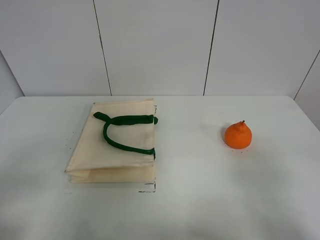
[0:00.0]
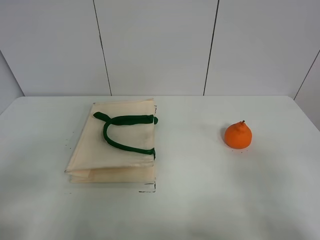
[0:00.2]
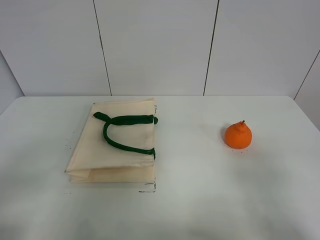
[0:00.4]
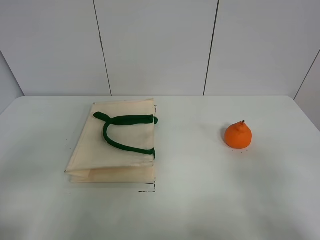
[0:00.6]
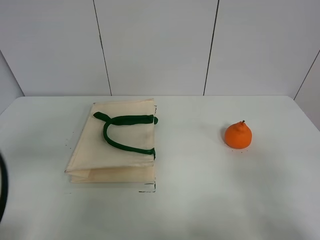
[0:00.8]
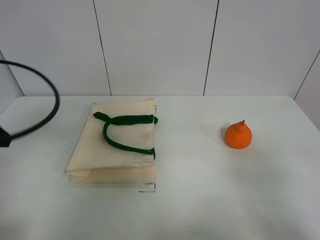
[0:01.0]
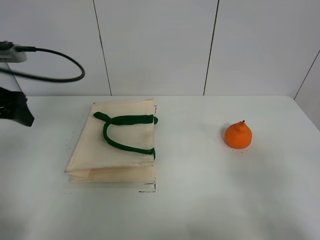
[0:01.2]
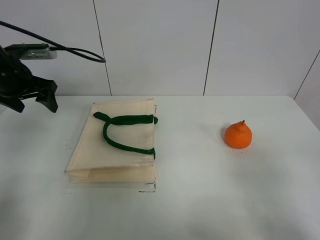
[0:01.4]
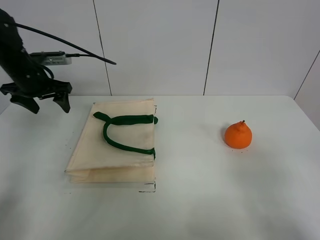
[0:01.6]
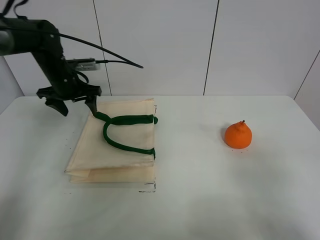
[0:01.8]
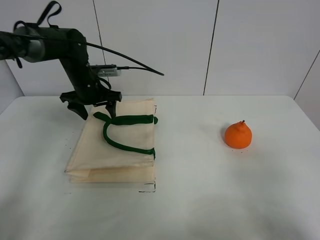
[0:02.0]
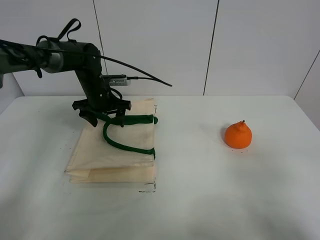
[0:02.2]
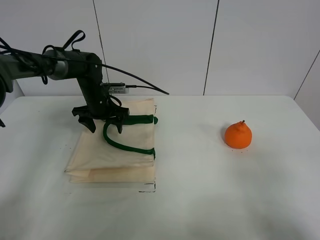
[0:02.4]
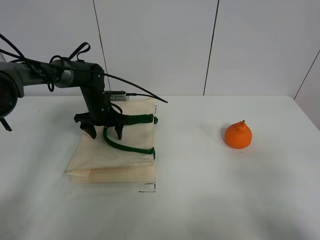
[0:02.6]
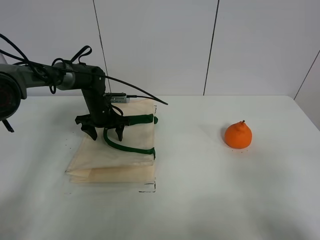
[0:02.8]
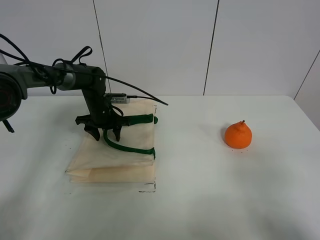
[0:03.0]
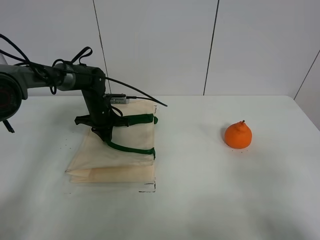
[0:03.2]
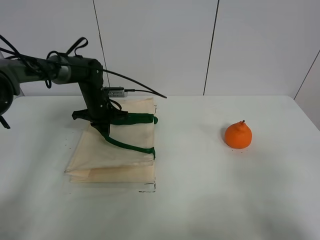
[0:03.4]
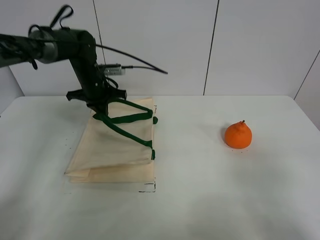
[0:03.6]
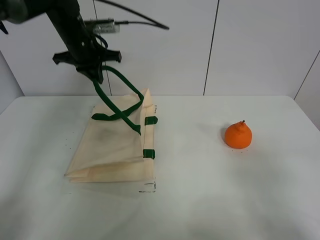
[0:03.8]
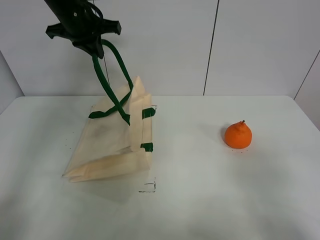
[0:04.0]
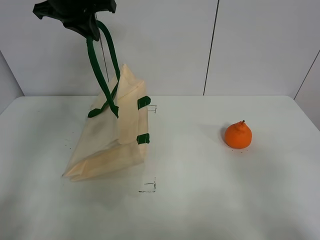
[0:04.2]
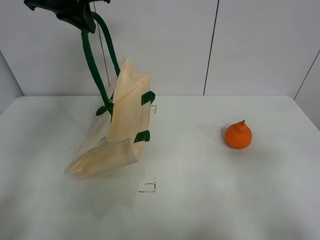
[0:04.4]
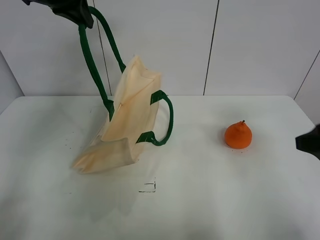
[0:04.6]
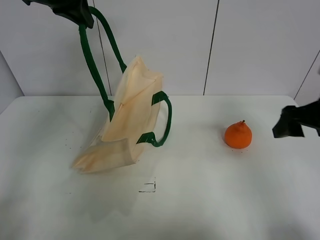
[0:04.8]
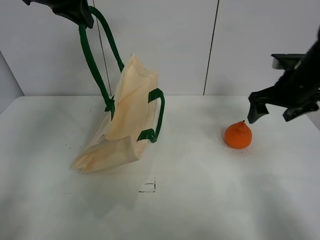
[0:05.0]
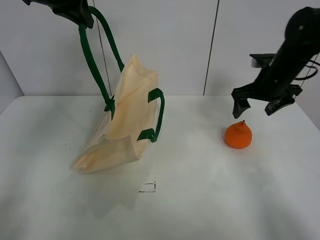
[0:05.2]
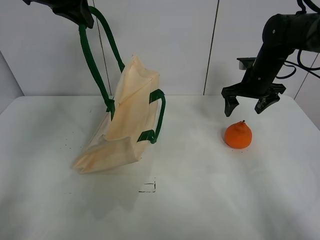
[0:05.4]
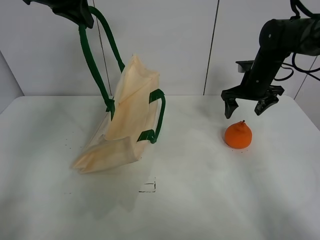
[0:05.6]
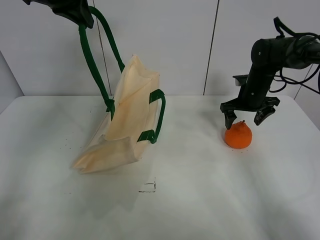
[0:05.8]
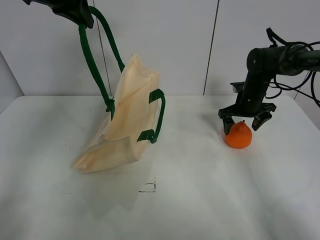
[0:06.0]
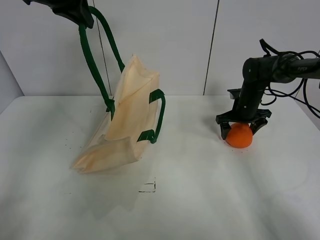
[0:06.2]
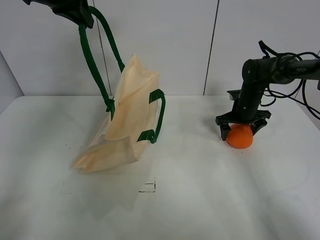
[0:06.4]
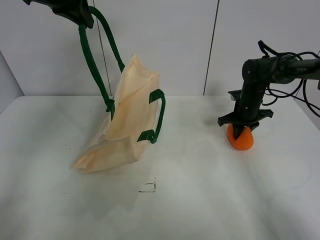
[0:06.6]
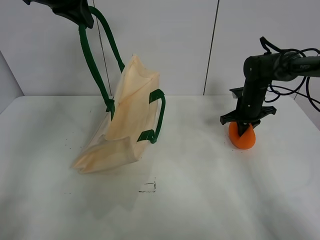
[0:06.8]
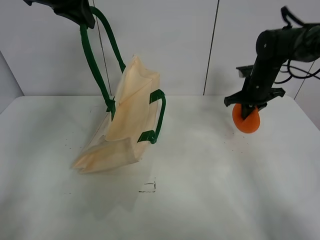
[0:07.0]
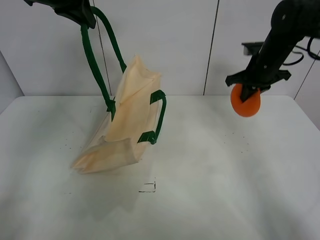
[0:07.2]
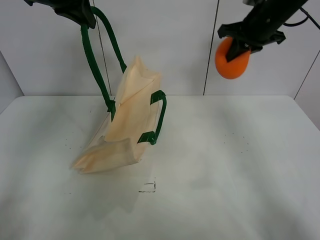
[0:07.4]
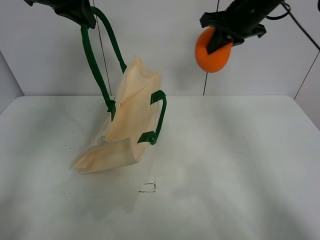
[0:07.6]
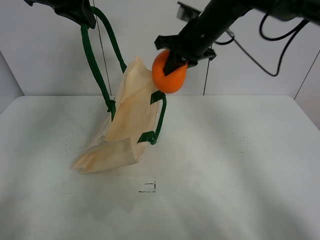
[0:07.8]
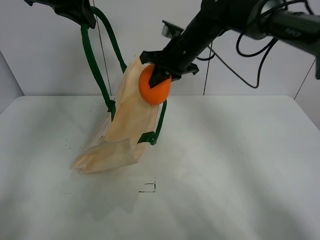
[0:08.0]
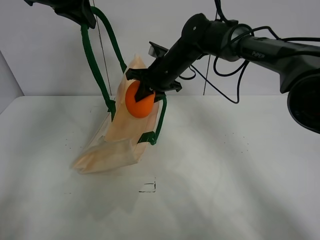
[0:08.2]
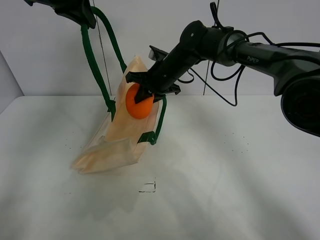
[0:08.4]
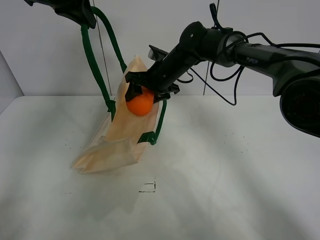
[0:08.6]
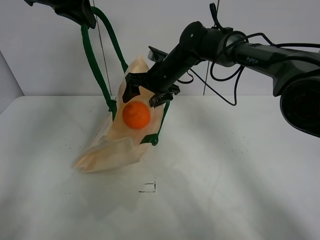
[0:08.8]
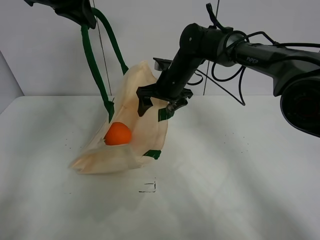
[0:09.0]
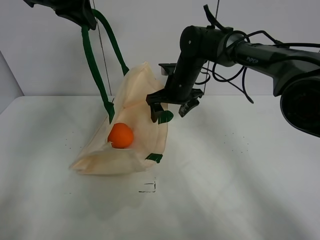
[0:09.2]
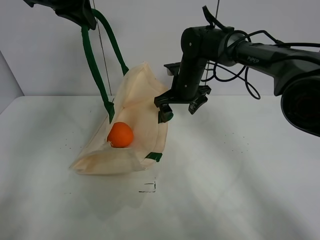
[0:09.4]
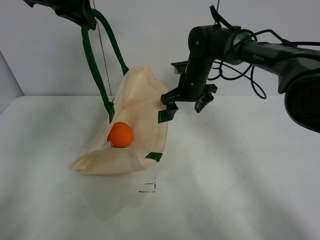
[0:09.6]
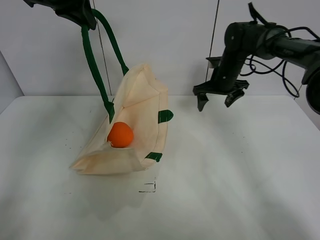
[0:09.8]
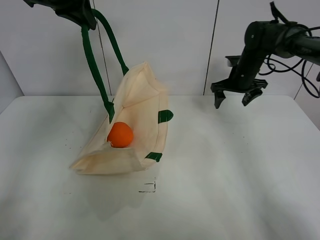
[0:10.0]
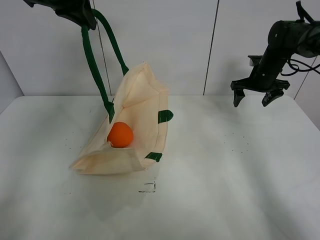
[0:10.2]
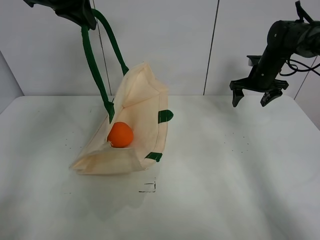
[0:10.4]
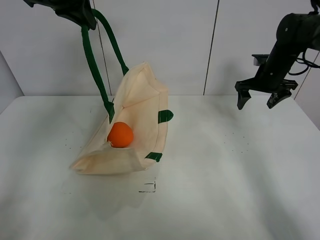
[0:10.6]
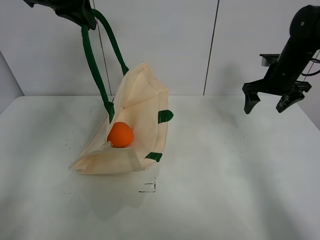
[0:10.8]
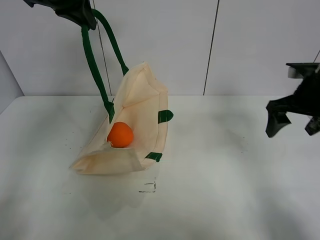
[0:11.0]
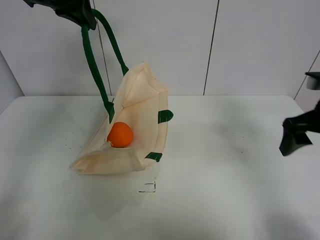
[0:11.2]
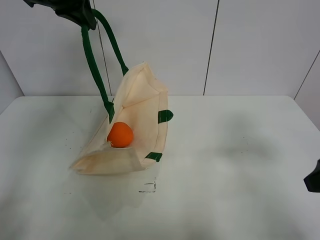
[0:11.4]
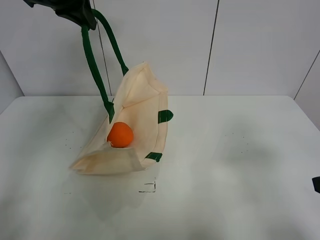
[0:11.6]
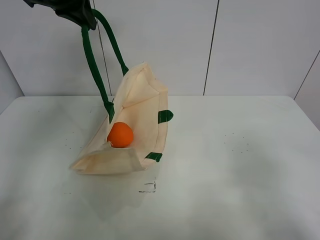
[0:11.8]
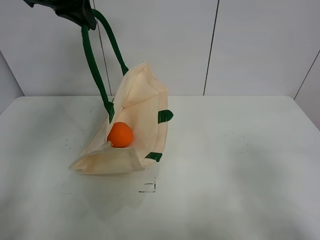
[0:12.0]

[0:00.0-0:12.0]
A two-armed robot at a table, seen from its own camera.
Task of the whole recording: open the white linen bag and put the orange in the bag.
Step, 0:00.0 to 0:04.2: Lift the handbag with left gripper.
Step, 0:04.4 to 0:06.6: Grasp the orange with right gripper.
Step, 0:06.8 to 0:09.4: Place the orange in the handbag with right gripper.
0:00.0 to 0:01.6: The left gripper goes about 40 cm forward.
0:01.6 to 0:03.0: The left gripper is displaced downward and to the right by approximately 20 cm.
0:03.0 to 0:04.4: The left gripper heads upward, covering roughly 35 cm, and closes up. Meanwhile the right gripper moves forward, about 5 cm.
0:04.4 to 0:06.0: The right gripper heads forward and downward, covering some 40 cm.
0:06.0 to 0:07.6: The right gripper travels upward and to the left by roughly 25 cm, and closes up.
0:07.6 to 0:09.0: The right gripper travels downward and to the left by approximately 20 cm, and opens its fingers.
0:09.0 to 0:10.4: The right gripper moves to the right, about 25 cm.
0:10.4 to 0:12.0: The right gripper is displaced backward by roughly 50 cm.

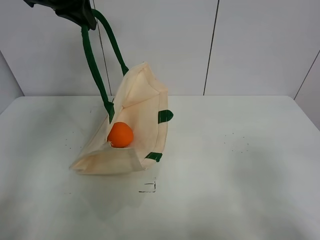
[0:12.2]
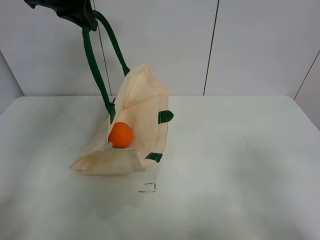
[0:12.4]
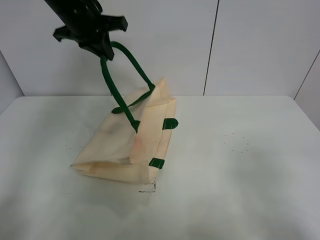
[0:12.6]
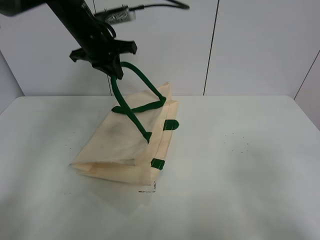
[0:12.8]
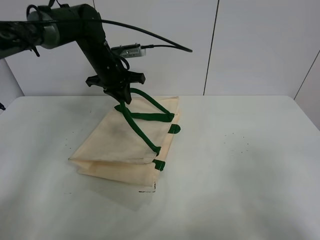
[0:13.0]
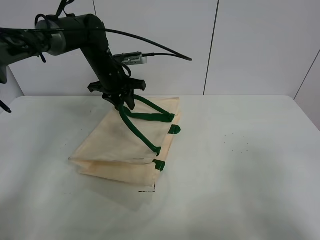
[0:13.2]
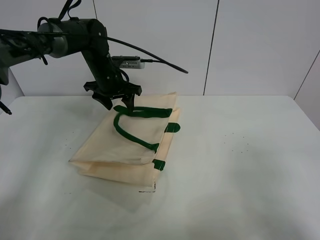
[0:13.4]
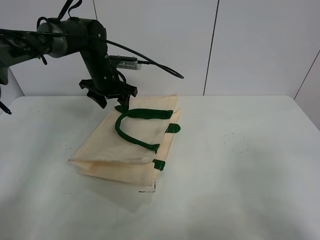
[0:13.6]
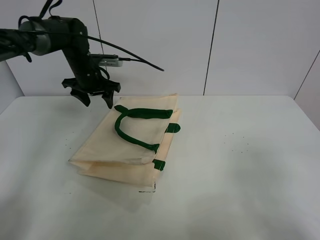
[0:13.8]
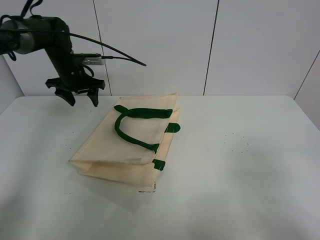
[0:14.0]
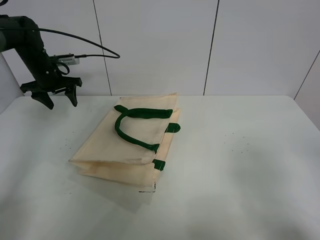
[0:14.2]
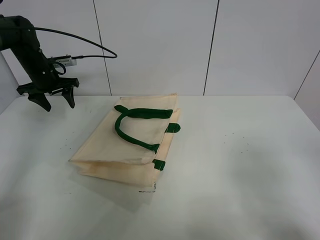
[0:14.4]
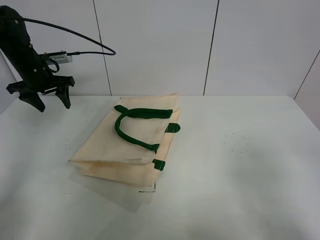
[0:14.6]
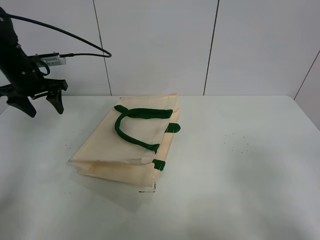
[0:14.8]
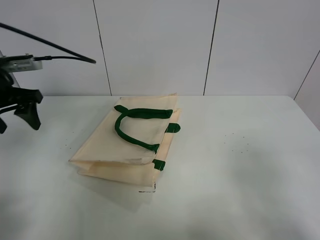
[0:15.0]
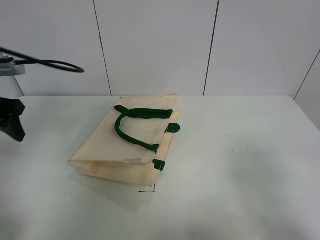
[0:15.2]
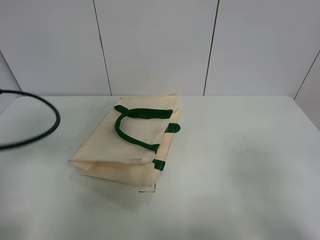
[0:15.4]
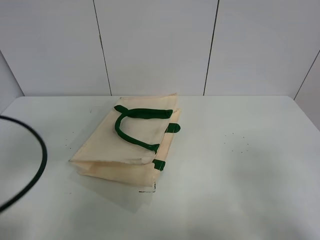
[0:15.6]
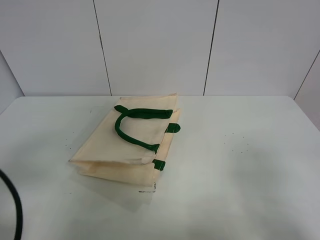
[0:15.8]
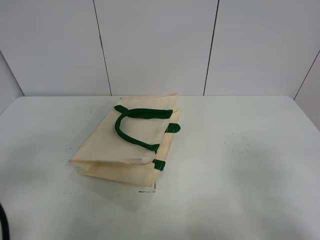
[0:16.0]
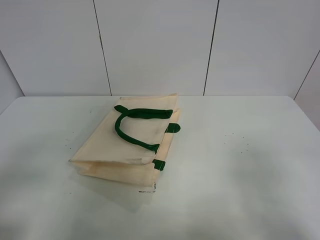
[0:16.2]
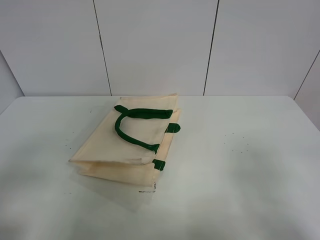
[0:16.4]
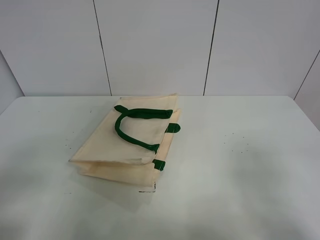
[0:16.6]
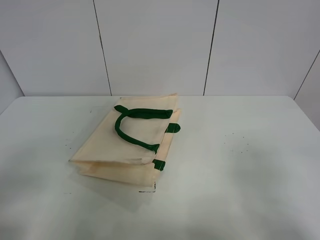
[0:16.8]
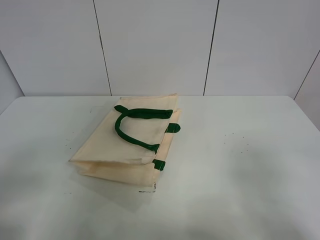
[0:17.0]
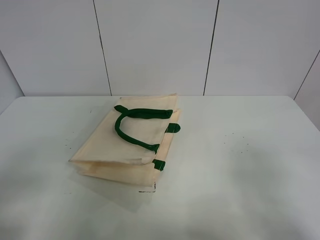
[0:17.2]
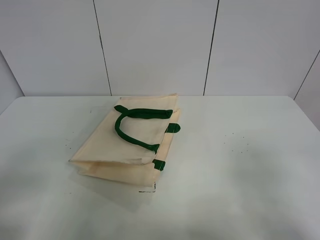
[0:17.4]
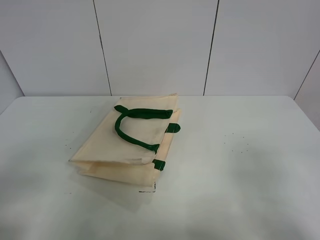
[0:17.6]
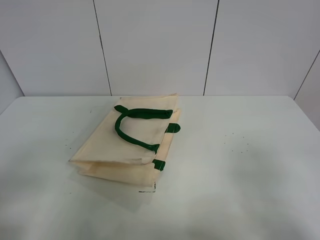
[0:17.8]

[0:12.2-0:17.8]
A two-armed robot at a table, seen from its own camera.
Task of the whole recording: open the white linen bag and put the orange in the bag.
0:12.2 to 0:13.6: The left gripper goes approximately 20 cm downward, and opens up.
0:13.6 to 0:15.0: The left gripper shifts approximately 25 cm backward, to the left and upward.
0:15.0 to 0:16.4: The left gripper moves backward, about 25 cm.
